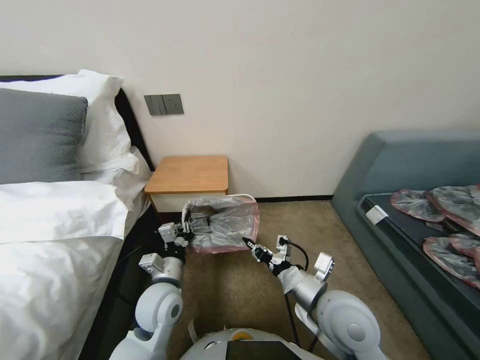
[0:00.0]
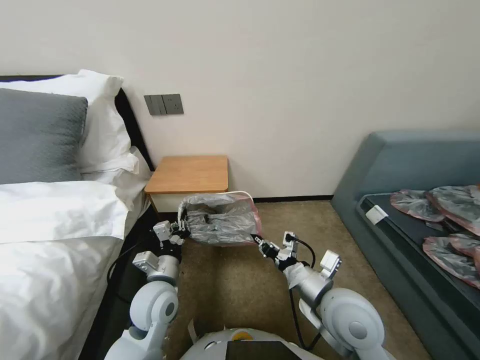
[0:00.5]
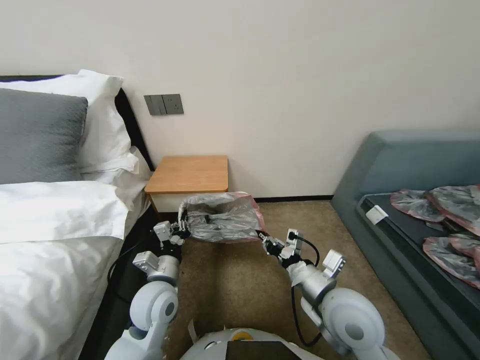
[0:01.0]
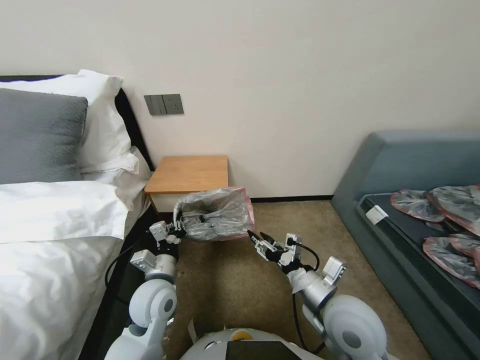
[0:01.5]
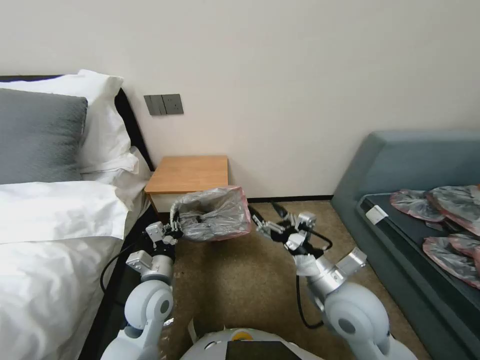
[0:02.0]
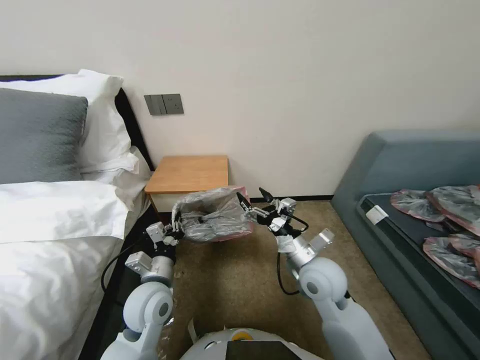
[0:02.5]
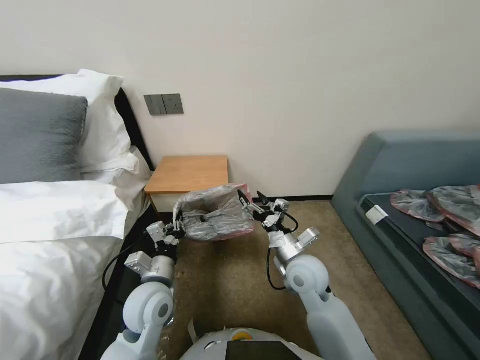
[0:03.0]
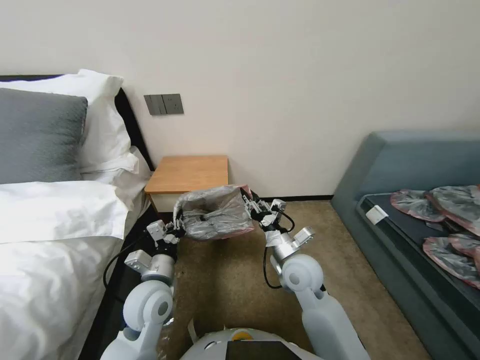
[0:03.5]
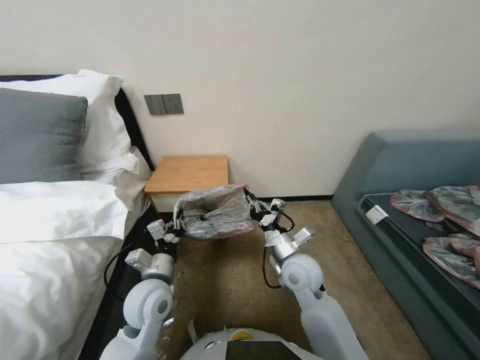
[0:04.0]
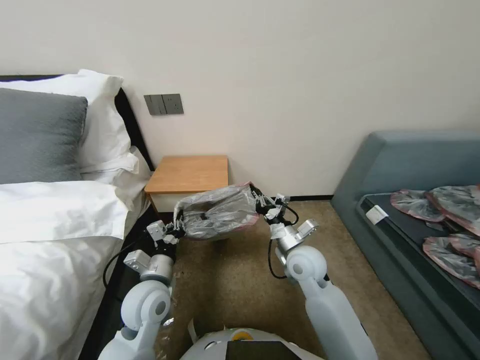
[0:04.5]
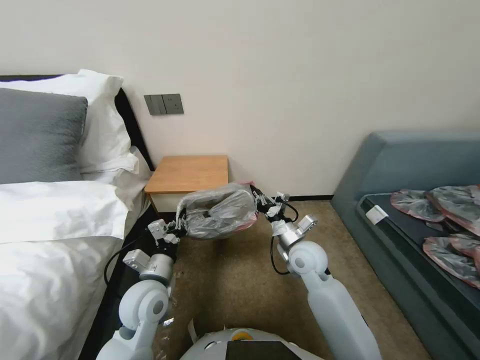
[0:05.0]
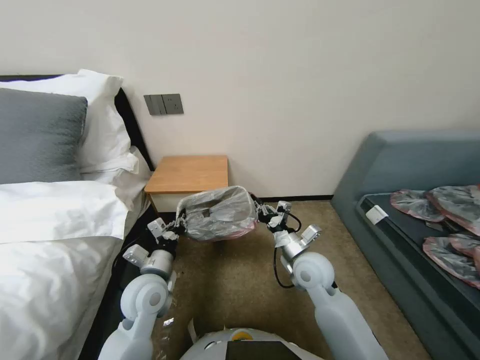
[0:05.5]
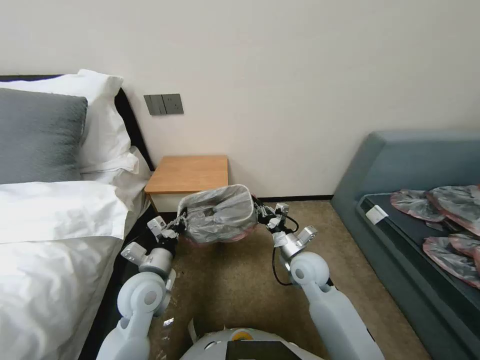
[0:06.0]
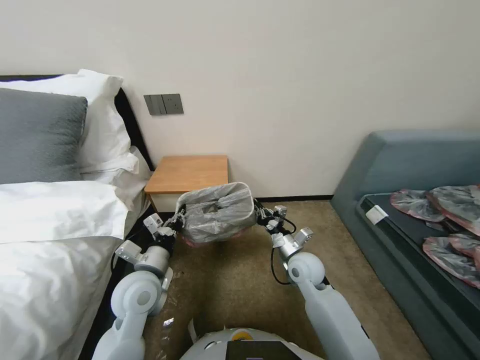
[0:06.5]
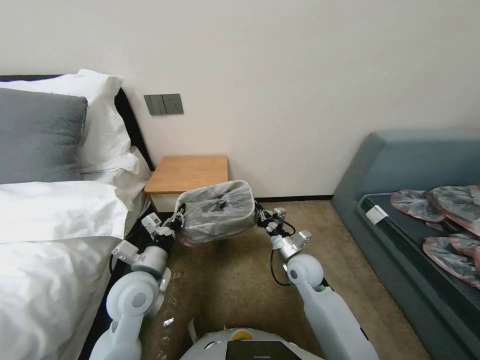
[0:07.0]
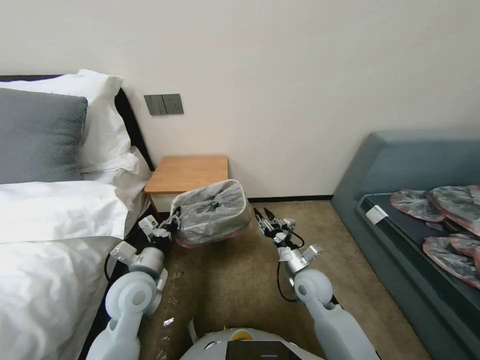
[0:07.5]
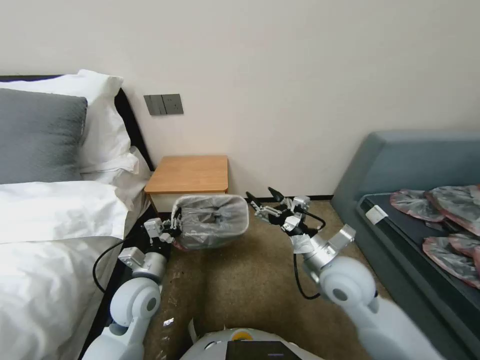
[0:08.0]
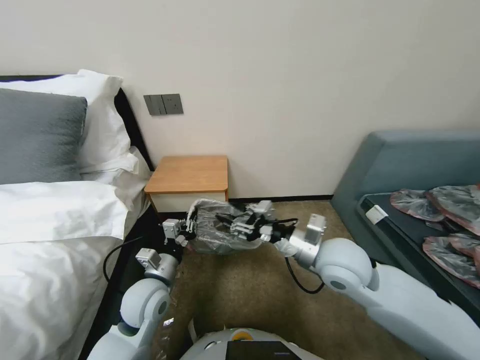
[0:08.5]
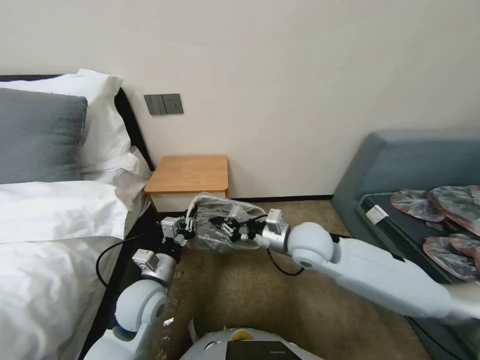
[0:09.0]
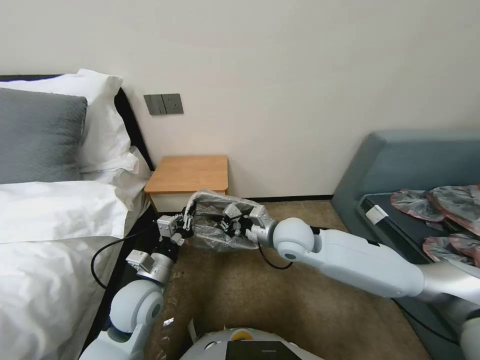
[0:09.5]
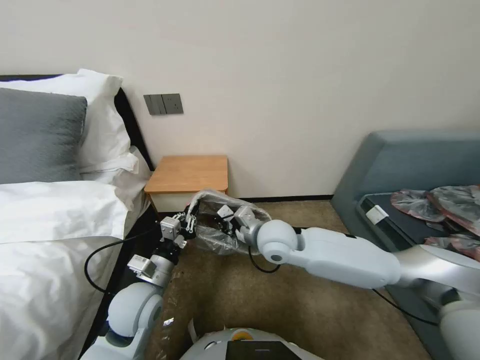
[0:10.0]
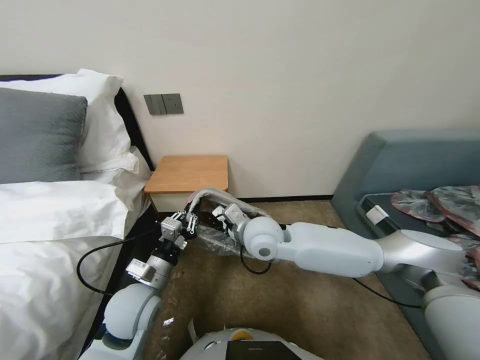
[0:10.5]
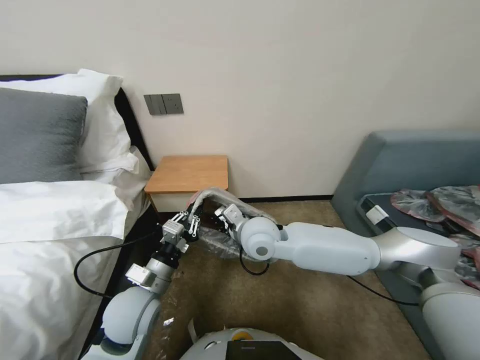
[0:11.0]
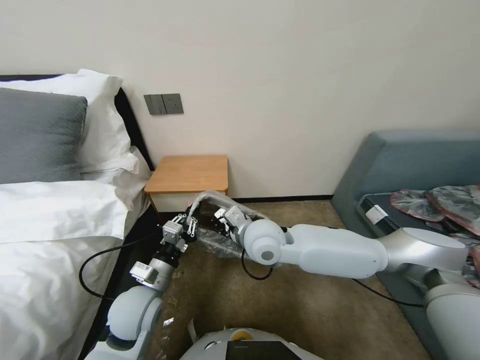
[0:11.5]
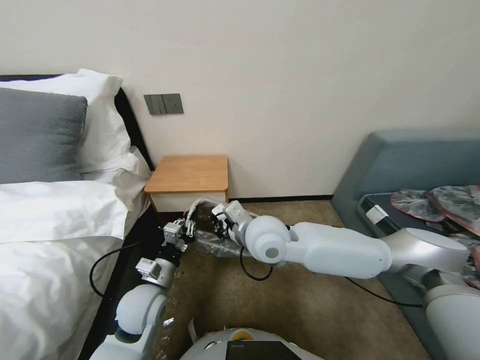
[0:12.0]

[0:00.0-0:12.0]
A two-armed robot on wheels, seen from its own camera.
Task of the whole recording: Pick up the garbage bag from the table and place it over the trash can.
0:00.0 to 0:02.0: The right gripper opens its fingers.
0:02.0 to 0:04.0: The right gripper travels forward and to the left by some 10 cm, and closes up.
0:04.0 to 0:06.0: The grippers make only small movements.
0:06.0 to 0:08.0: The right gripper heads upward and backward, covering approximately 10 cm, and opens its fingers.
0:08.0 to 0:10.0: The right gripper travels to the left and forward by about 15 cm, and closes its fingers.
0:10.0 to 0:12.0: The right gripper shifts by about 5 cm.

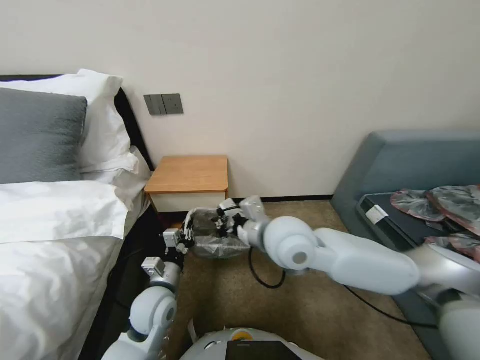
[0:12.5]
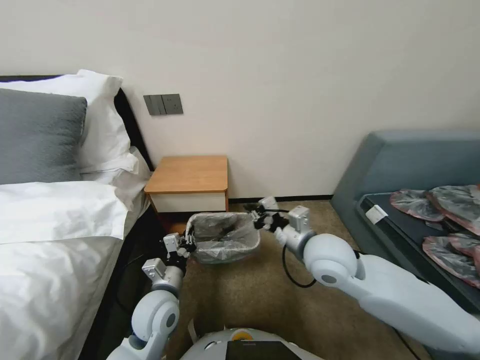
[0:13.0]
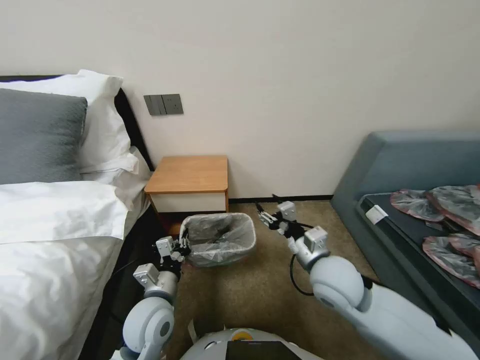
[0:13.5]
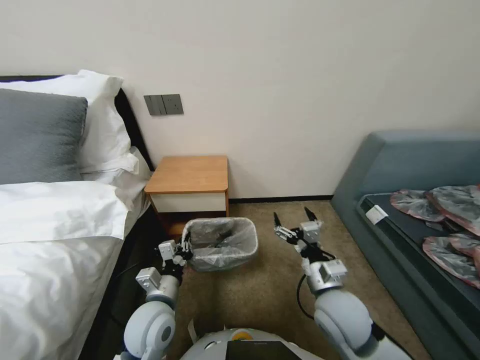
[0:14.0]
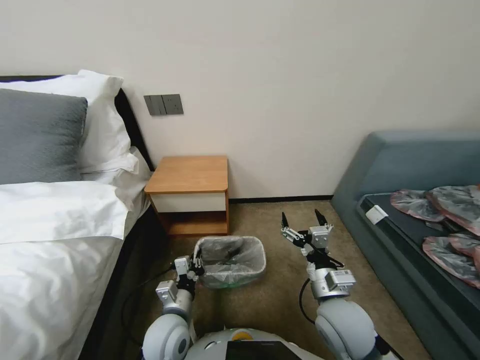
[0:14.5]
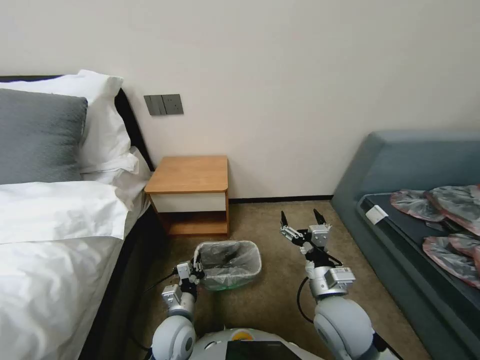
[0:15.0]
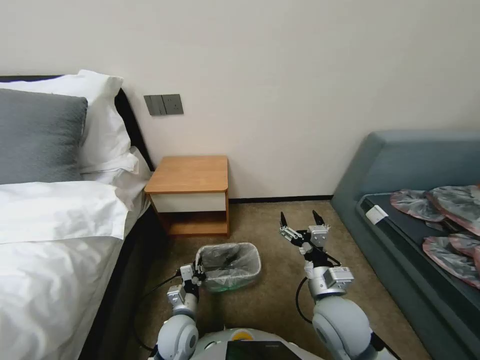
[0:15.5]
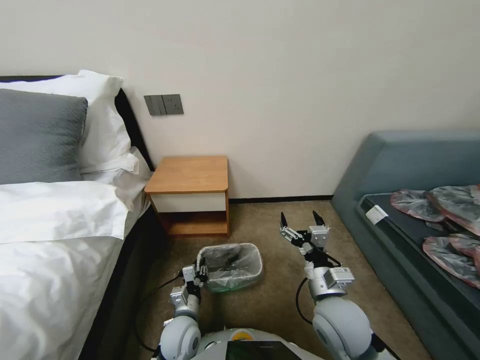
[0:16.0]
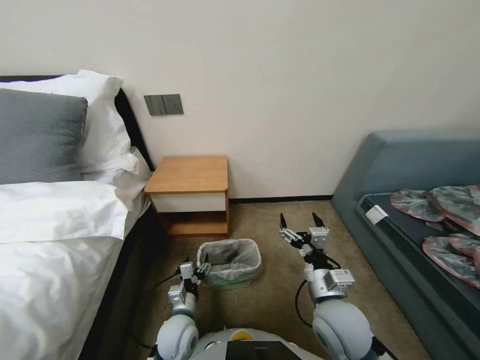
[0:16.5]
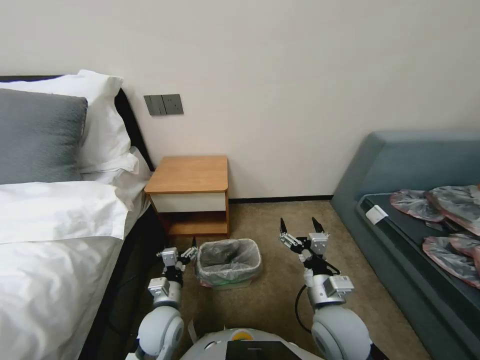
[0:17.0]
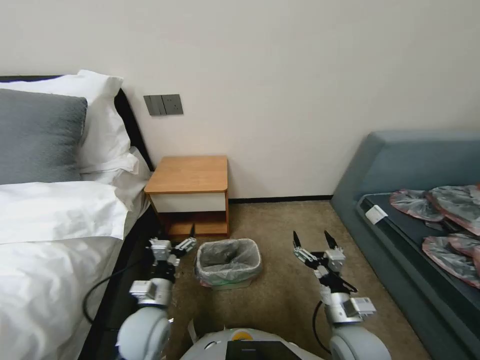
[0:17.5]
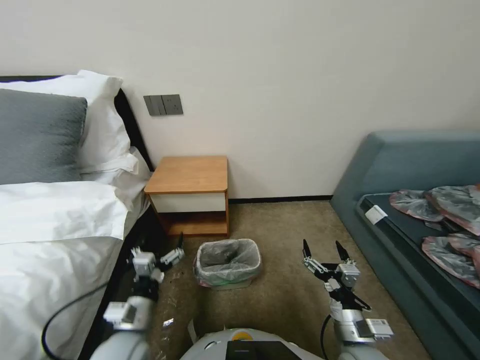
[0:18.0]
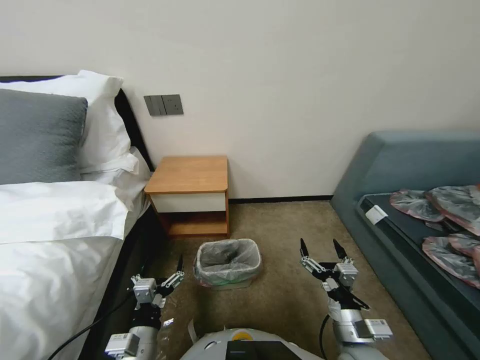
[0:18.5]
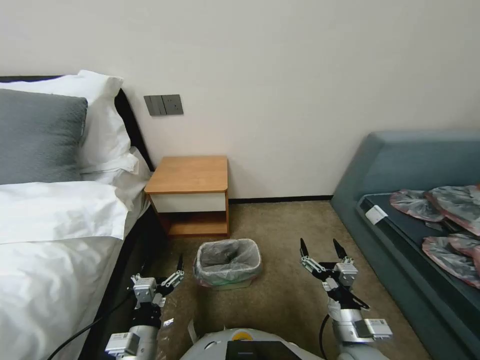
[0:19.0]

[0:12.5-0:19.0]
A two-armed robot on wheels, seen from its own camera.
Task of the whole recording: Pick up the garbage bag from the table and place it over the trash can.
0:12.5 to 0:14.5: The left gripper moves backward, about 5 cm; the right gripper goes approximately 20 cm downward, to the right and backward, and opens up.
0:14.5 to 0:17.0: The left gripper opens.
0:17.0 to 0:19.0: The left gripper goes about 10 cm backward and upward; the right gripper is displaced backward and to the right by about 10 cm.
